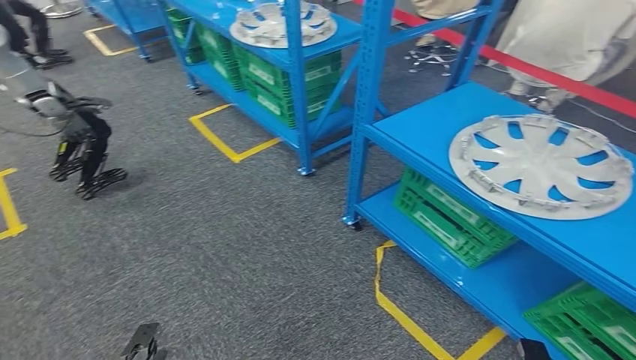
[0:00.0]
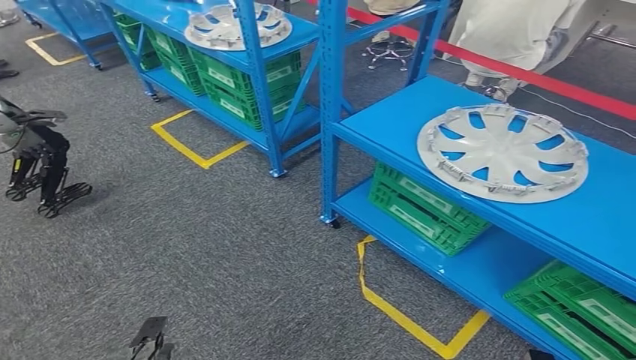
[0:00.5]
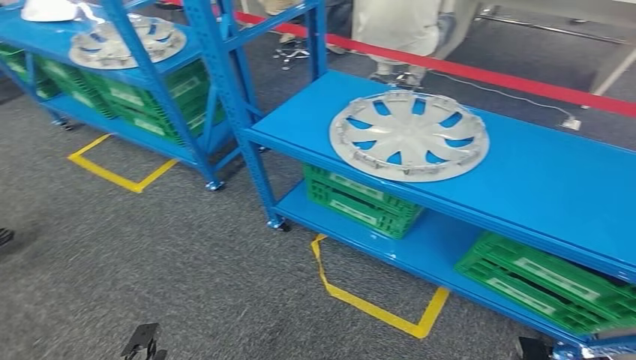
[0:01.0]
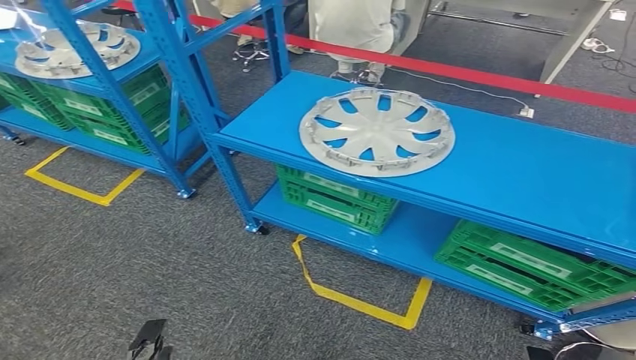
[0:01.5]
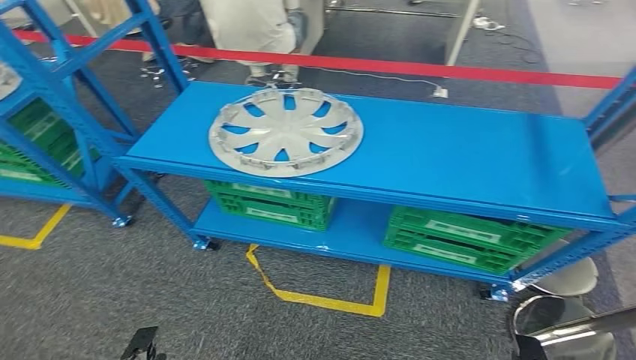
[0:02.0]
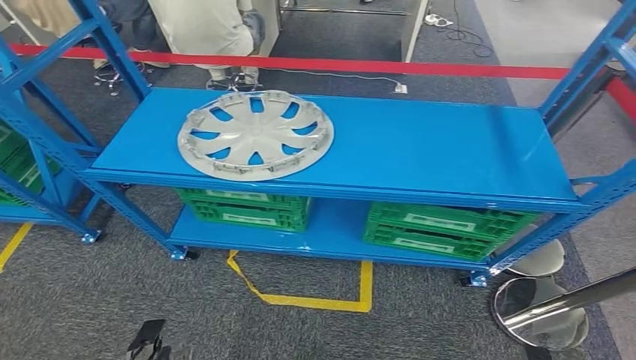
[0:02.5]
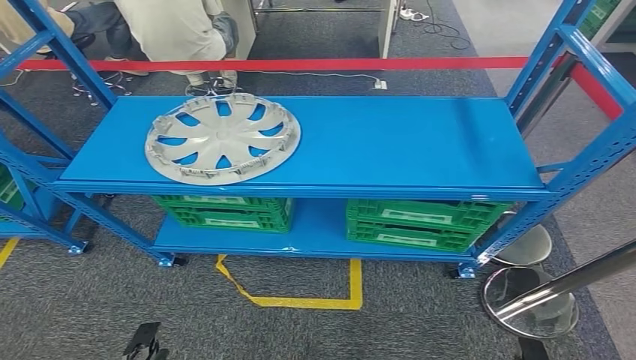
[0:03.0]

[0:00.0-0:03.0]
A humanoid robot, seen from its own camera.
Step, 0:00.0 to 0:03.0: Move to the initial position of the workbench.
